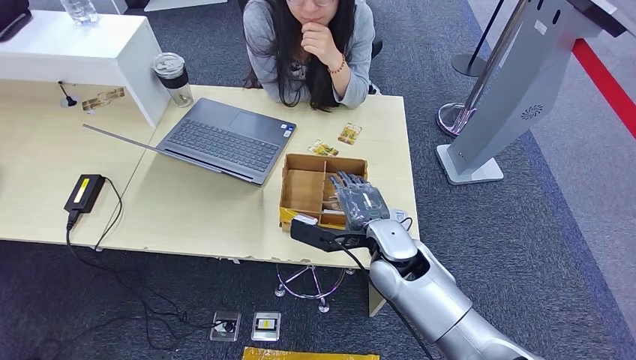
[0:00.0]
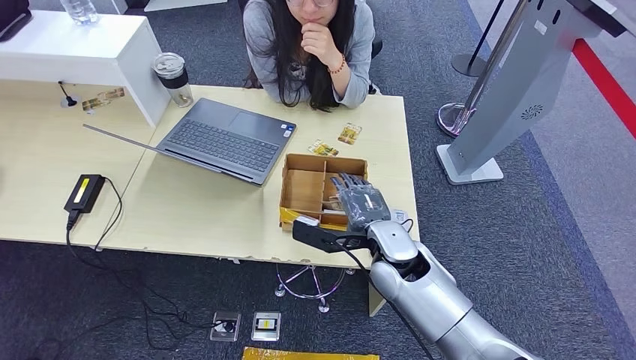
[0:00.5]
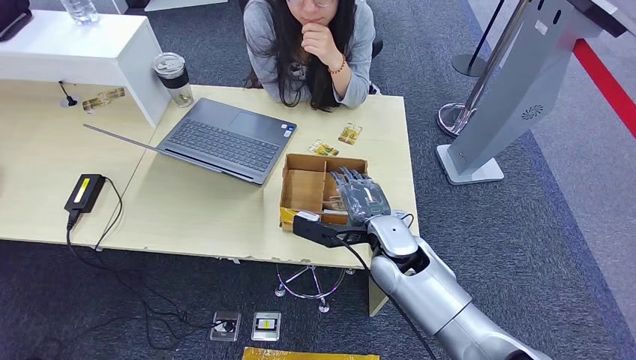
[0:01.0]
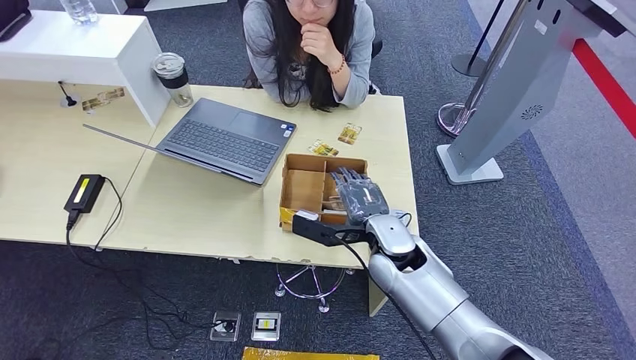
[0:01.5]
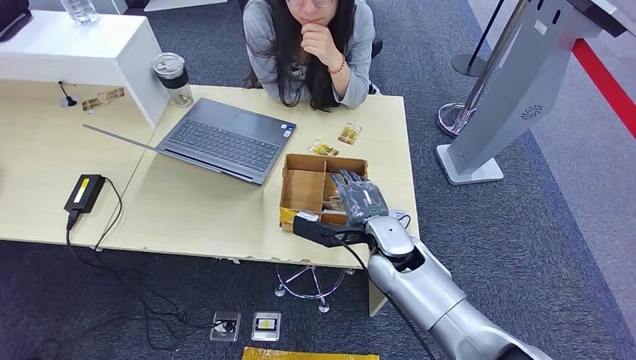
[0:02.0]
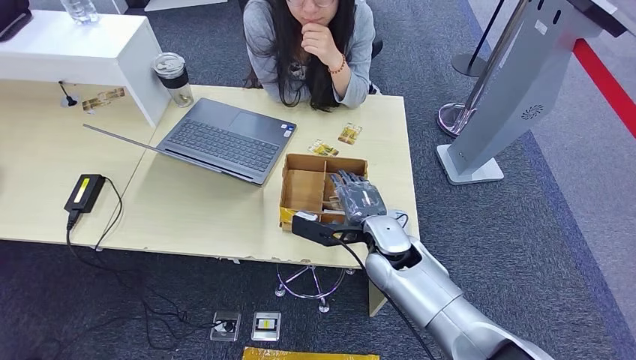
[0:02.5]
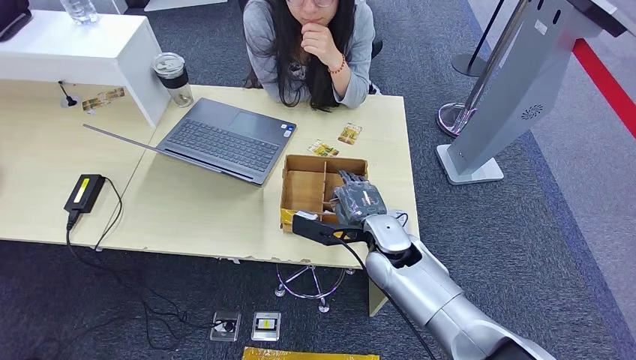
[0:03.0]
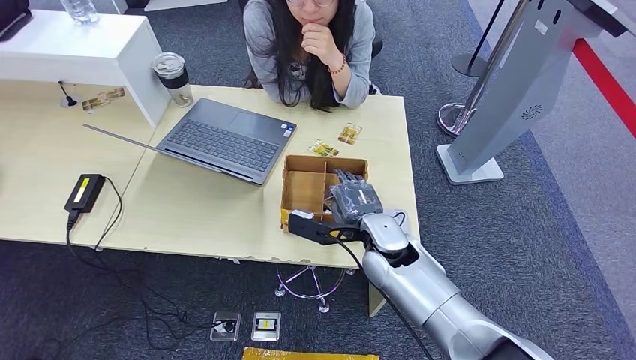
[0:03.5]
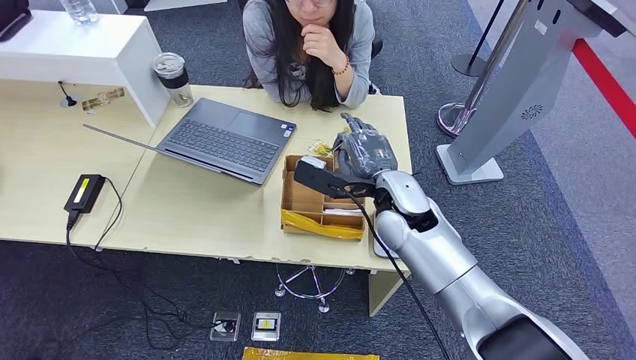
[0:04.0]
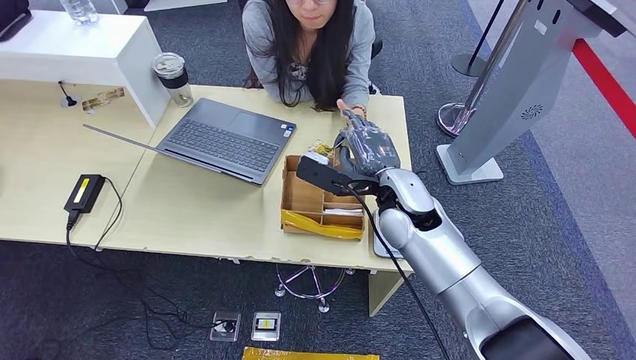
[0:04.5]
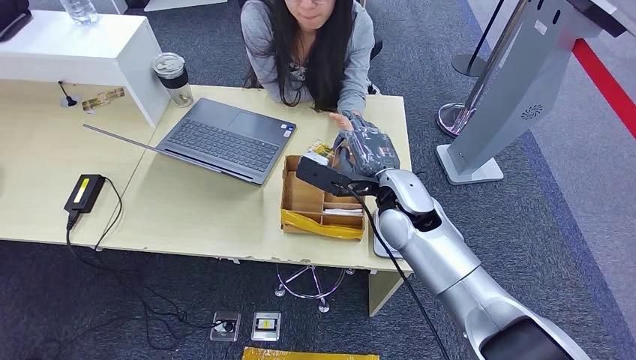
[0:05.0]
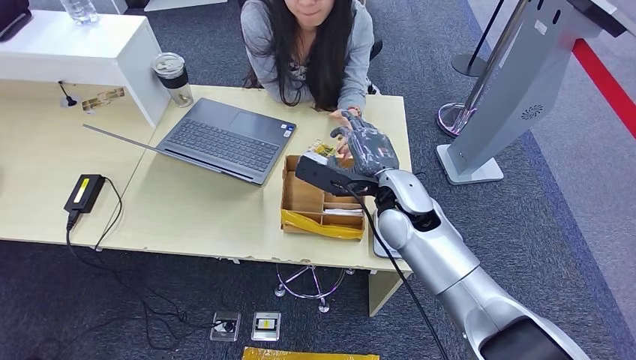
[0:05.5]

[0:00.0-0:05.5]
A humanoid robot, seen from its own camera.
Step, 0:02.5 to 0:03.5: Pick up the room key from the key card box.
Step, 0:04.0 to 0:05.5: Hand the room key to the person.
0:00.0 to 0:02.0: The hands make only small movements.
0:02.0 to 0:03.5: Both hands stay put.
0:03.5 to 0:05.5: The right hand shifts roughly 10 cm upward.
